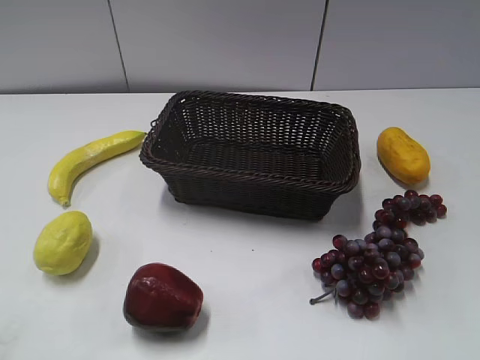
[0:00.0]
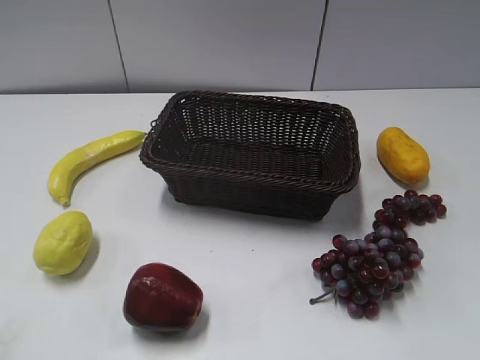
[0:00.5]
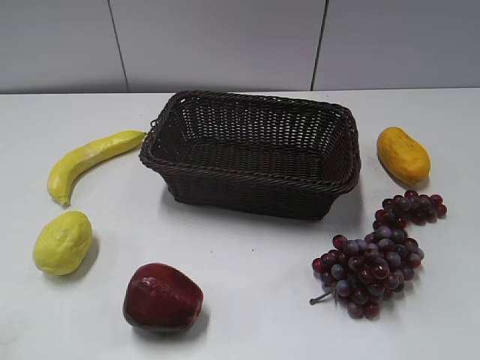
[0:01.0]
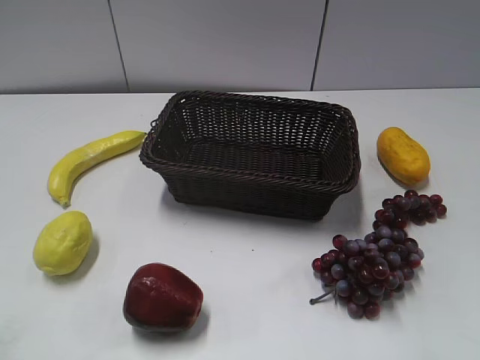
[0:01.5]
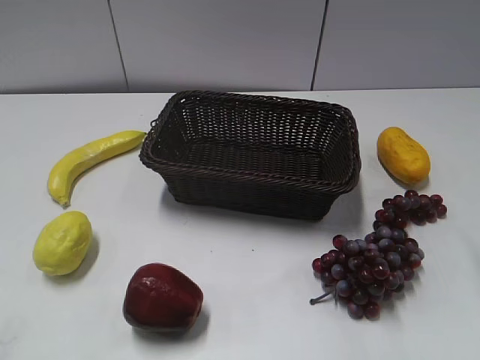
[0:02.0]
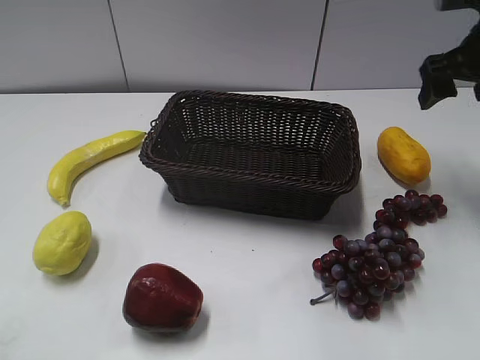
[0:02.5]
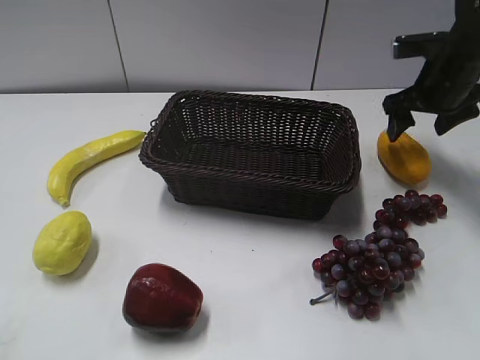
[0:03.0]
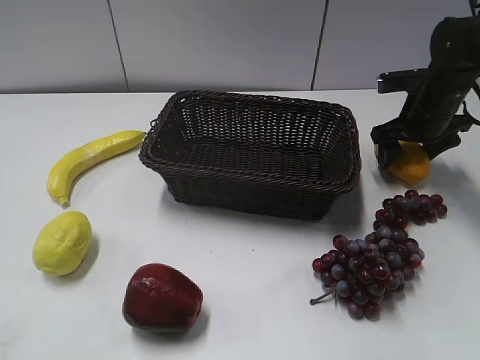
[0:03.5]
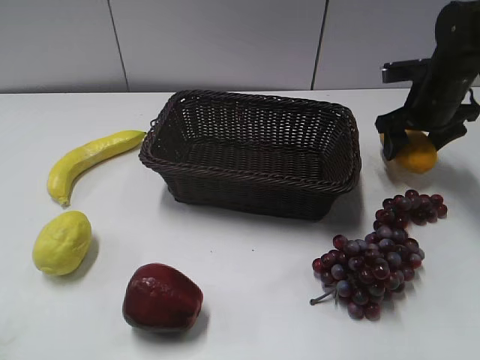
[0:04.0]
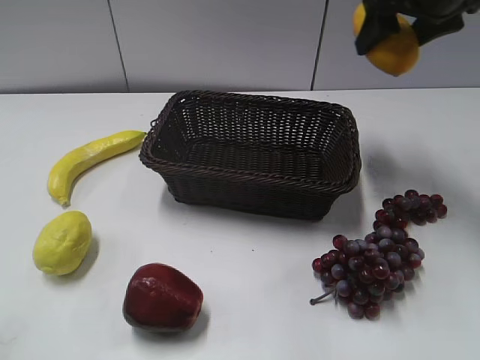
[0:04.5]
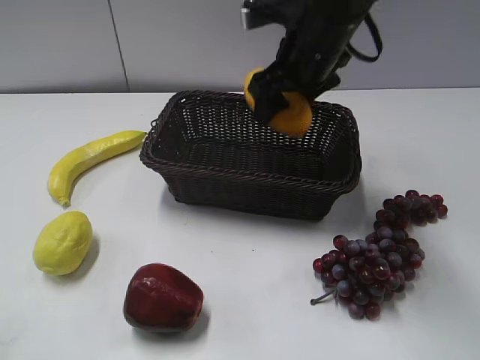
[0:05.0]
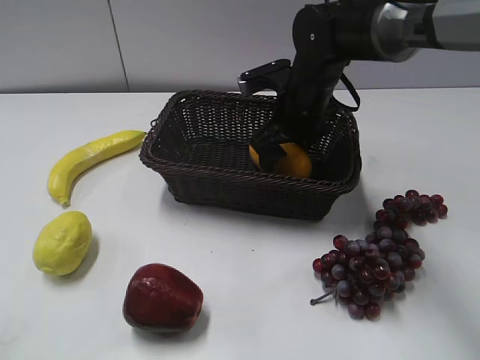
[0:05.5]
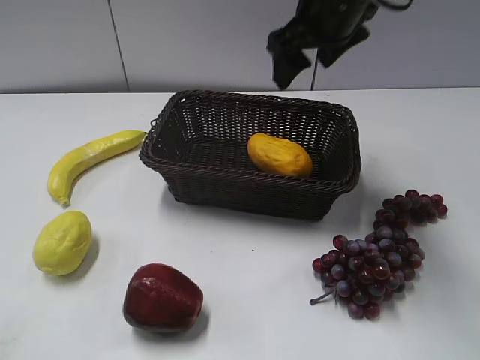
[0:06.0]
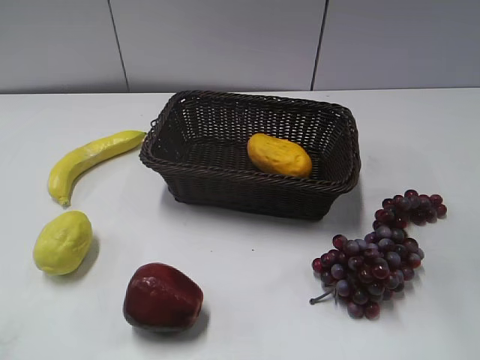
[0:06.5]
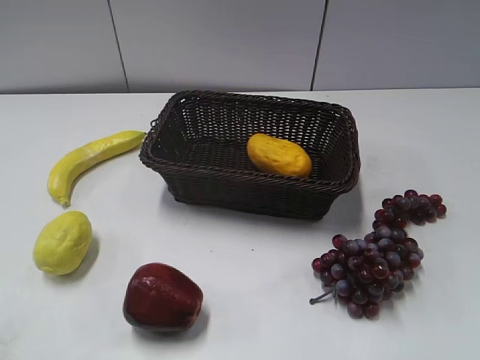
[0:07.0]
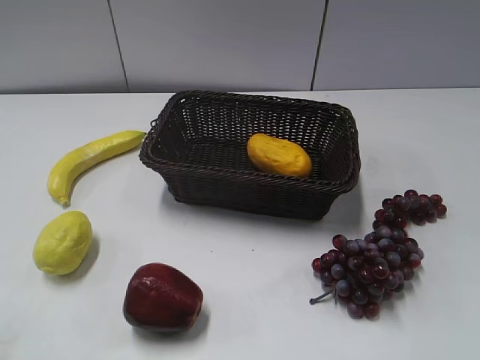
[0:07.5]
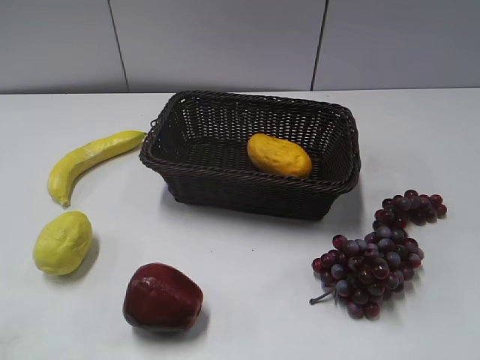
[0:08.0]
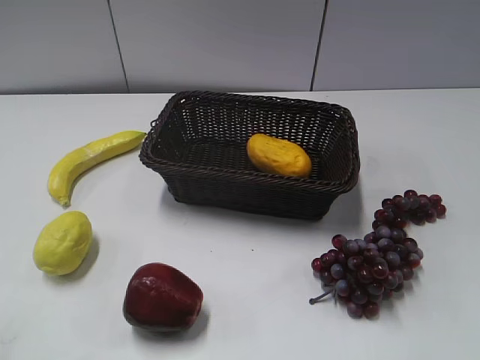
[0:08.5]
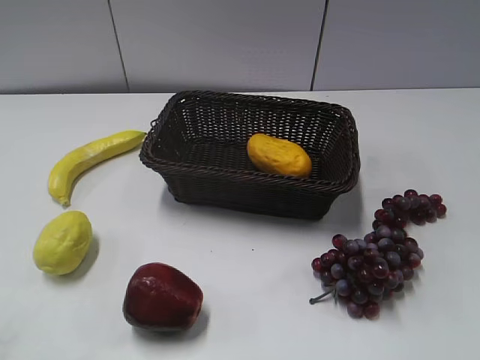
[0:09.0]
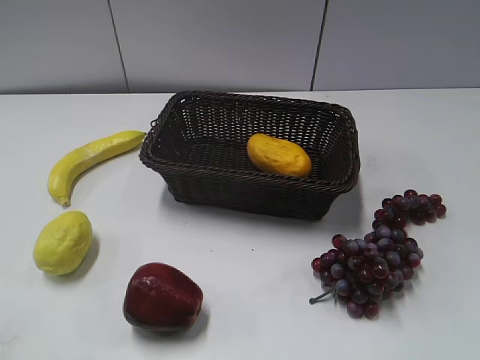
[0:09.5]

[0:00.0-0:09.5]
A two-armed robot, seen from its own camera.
Step, 0:02.5 to 0:03.5: Grasp the mango with right gripper.
Step, 0:04.0 to 0:05.5: Place the mango in the basket with right gripper.
0:02.0 to 0:04.0: The right gripper goes about 30 cm forward and downward, and closes its fingers.
0:04.0 to 0:05.5: The right gripper is displaced to the left by roughly 20 cm, and opens up.
0:05.5 to 0:07.5: The right gripper moves backward and to the right, roughly 40 cm, and closes.
